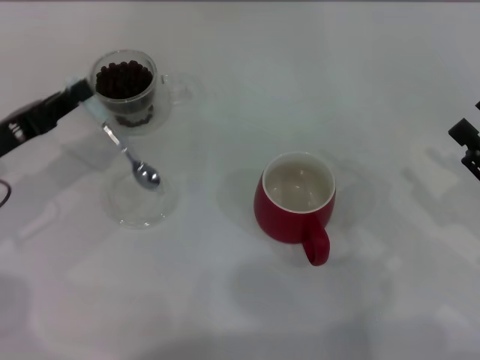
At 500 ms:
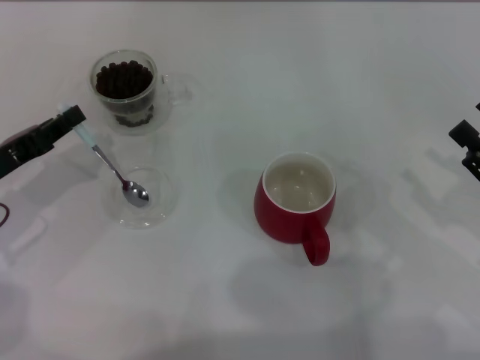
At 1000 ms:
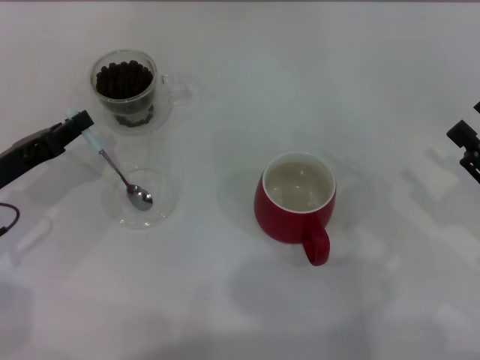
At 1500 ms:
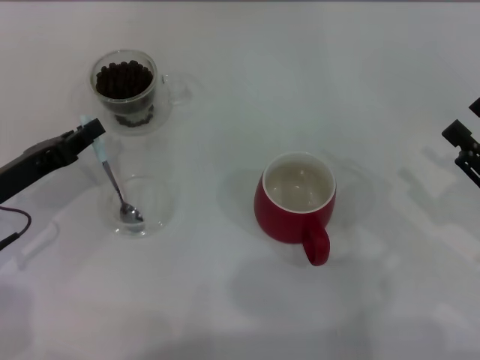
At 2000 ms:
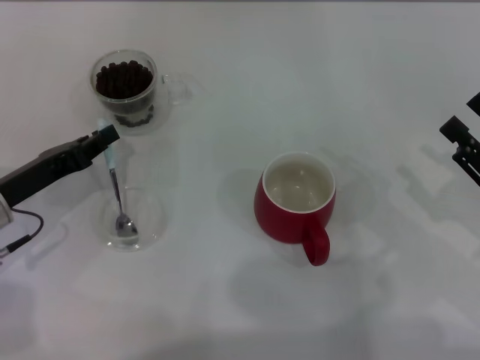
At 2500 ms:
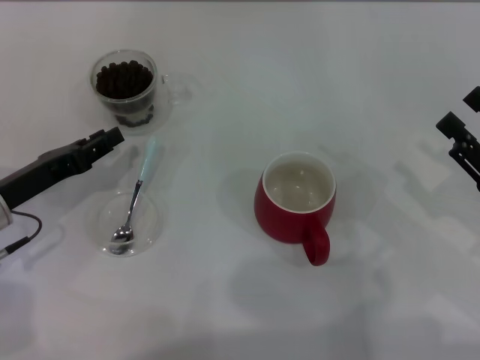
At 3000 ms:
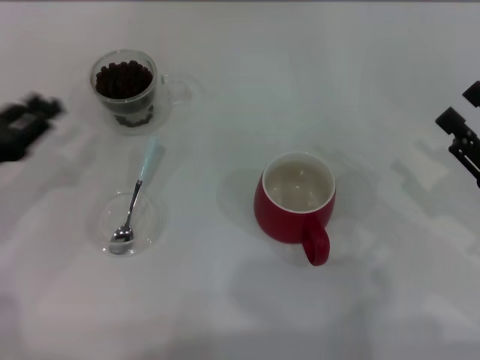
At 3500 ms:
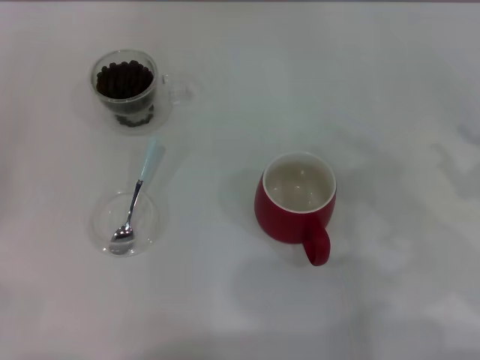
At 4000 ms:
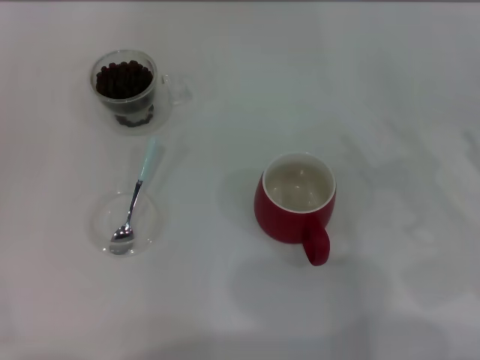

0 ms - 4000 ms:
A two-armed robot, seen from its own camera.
Task of the whole recording: Use a blue spoon to take out the coffee beans from the glass and pour them into the red cup.
Step, 0 ms - 2000 ms: Place the spoon back in its original place with the right gripper.
0 ms - 2000 ms: The grippers stay close to where they were, moving slightly.
2000 ms - 4000 ms: The left gripper goes approximately 20 cm to the left and backward, and opens.
